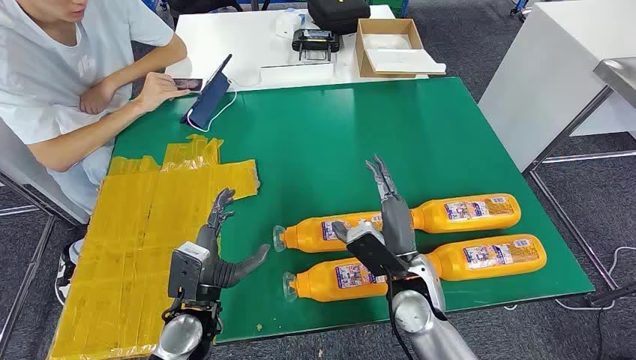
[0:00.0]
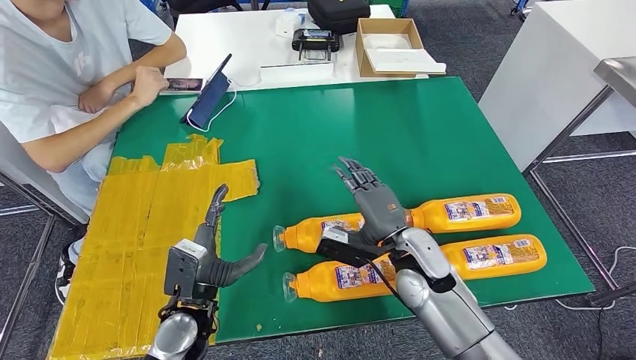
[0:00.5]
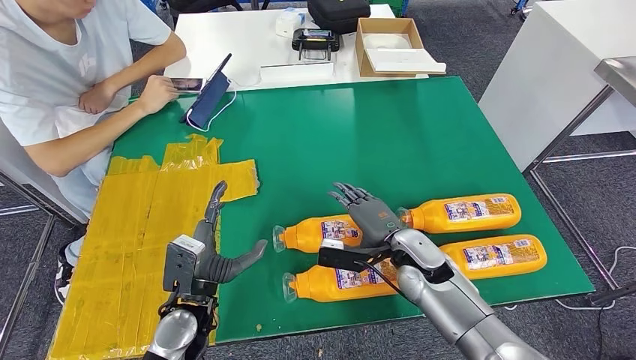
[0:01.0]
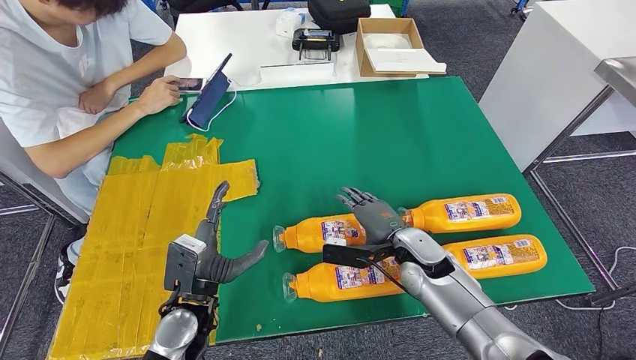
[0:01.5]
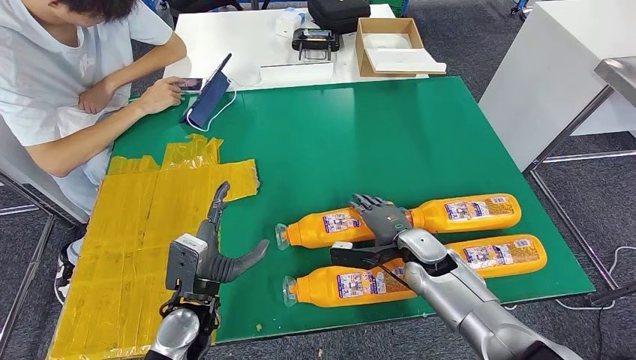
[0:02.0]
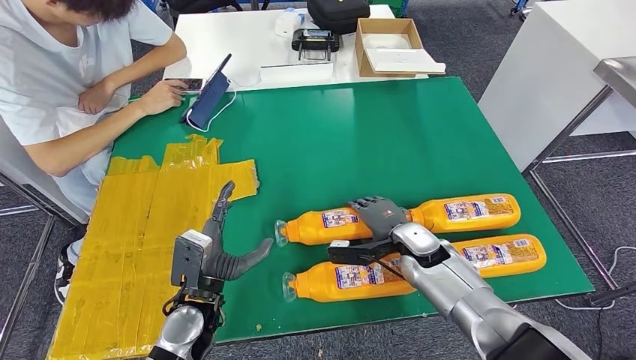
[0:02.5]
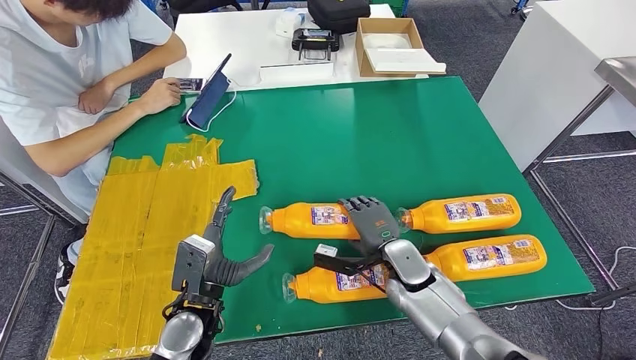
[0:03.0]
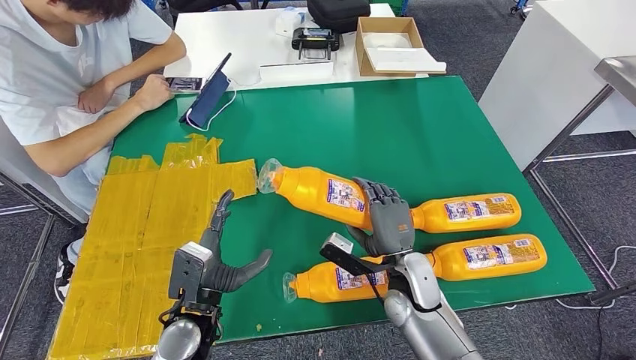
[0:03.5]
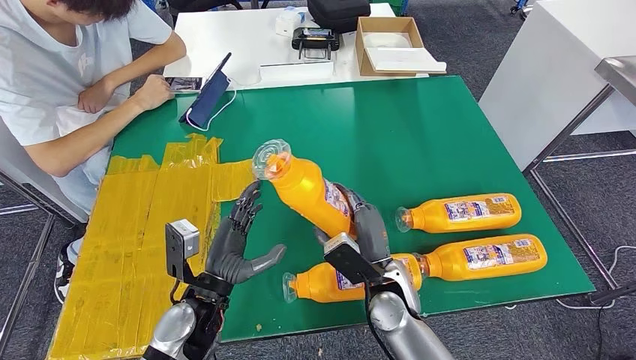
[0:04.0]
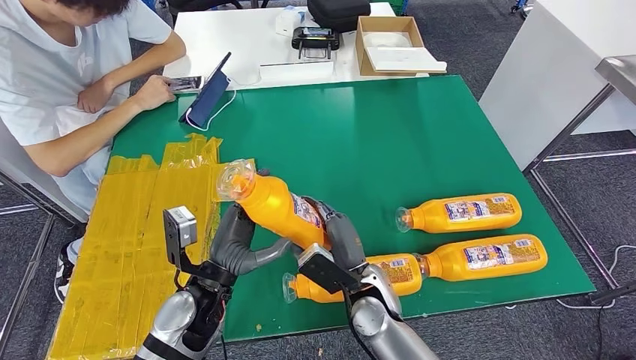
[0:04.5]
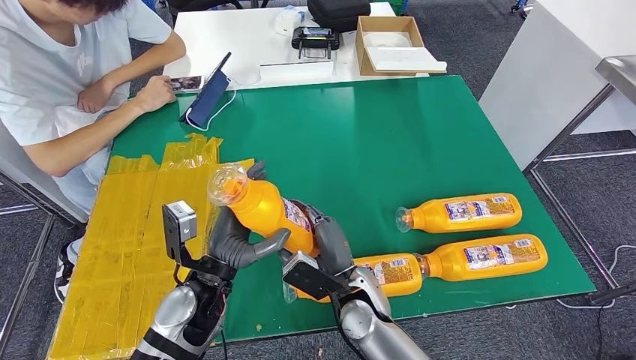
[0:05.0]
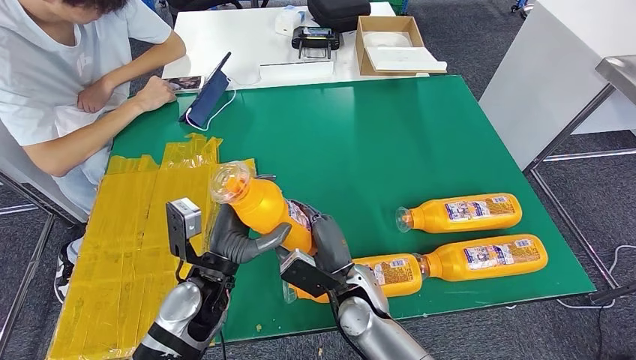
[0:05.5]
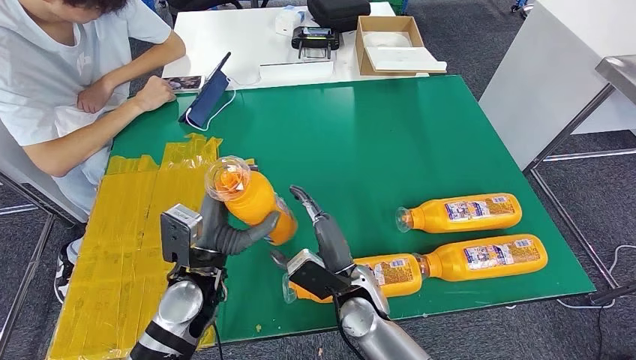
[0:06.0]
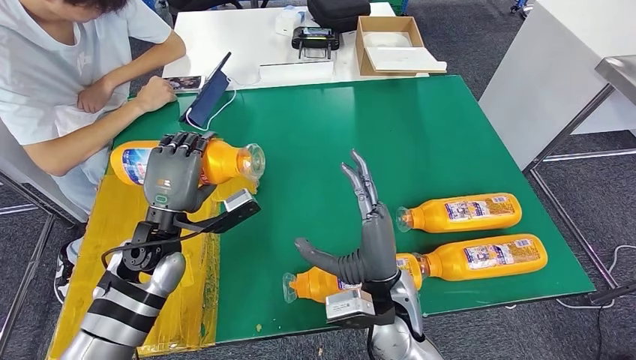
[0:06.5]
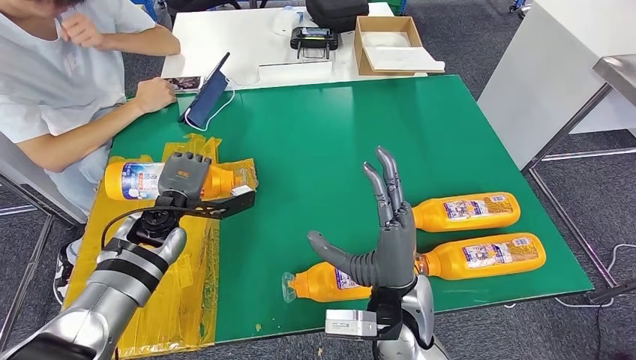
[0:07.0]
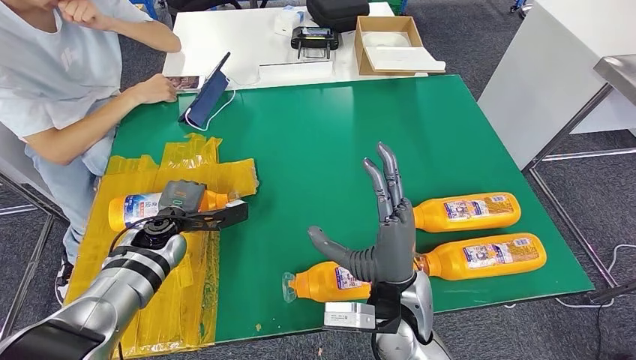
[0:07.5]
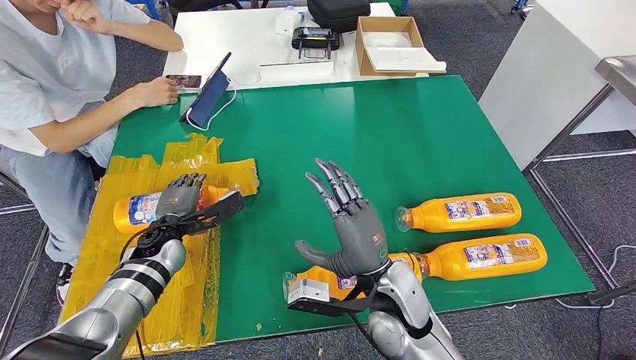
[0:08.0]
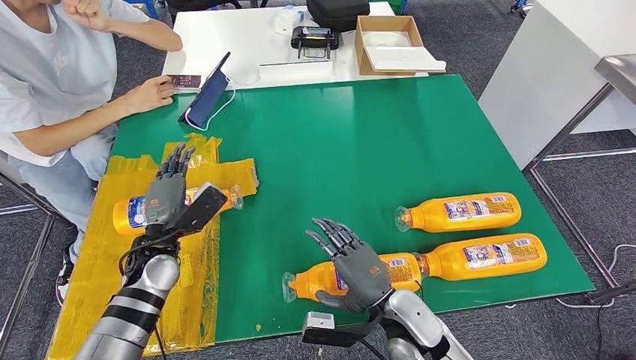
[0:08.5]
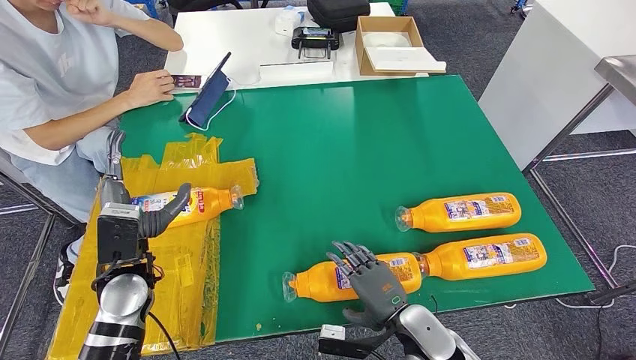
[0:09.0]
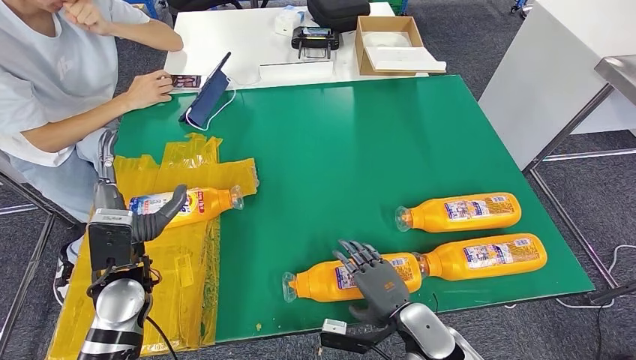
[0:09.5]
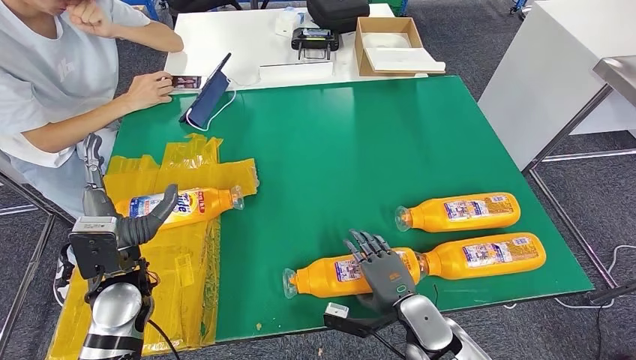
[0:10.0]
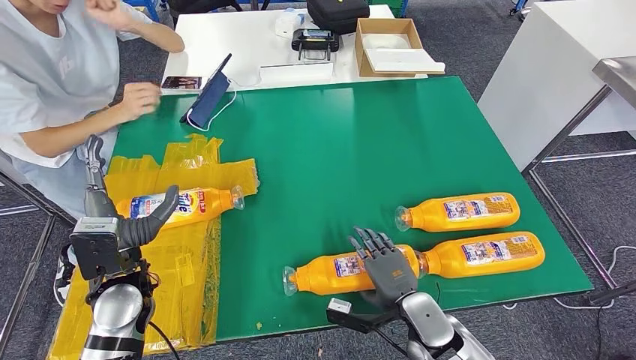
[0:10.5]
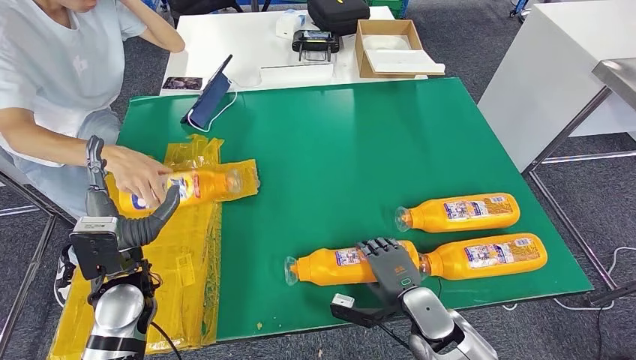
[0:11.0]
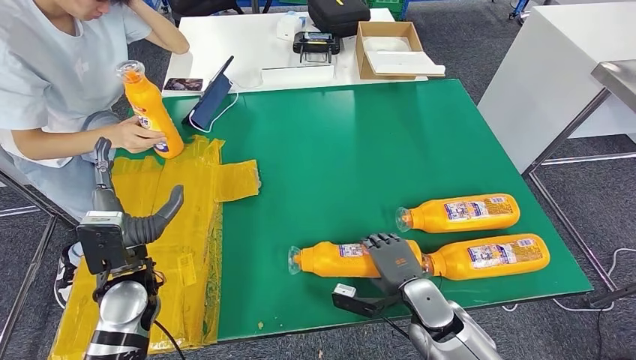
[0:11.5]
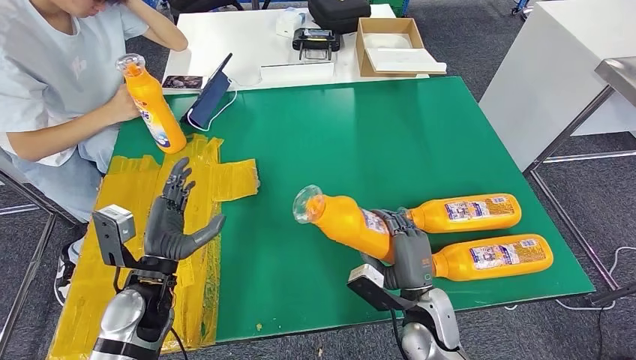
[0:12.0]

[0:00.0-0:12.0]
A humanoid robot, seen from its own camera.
Step, 0:00.0 to 0:03.5: Take the bottle from the table.
Step, 0:04.5 to 0:09.0: Flip the bottle to face forward.
0:02.0 to 0:04.0: The right hand heads to the left and backward, covering about 10 cm.
0:04.0 to 0:06.0: The right hand moves to the left, about 5 cm.
0:08.0 to 0:10.0: The right hand is displaced downward and to the right by roughly 15 cm; the left hand travels backward and upward by about 15 cm.

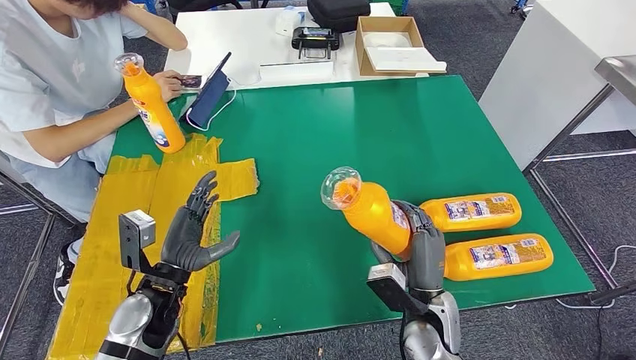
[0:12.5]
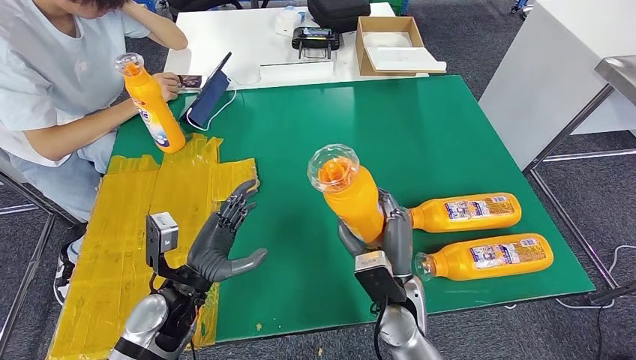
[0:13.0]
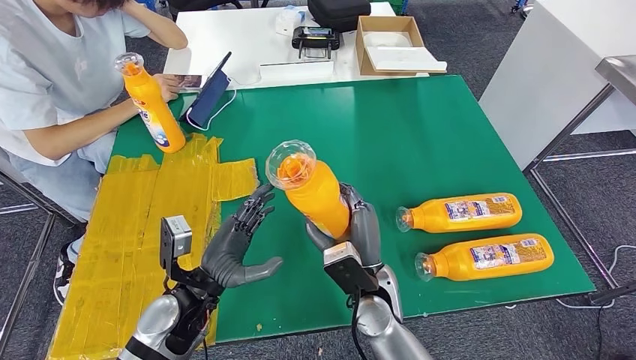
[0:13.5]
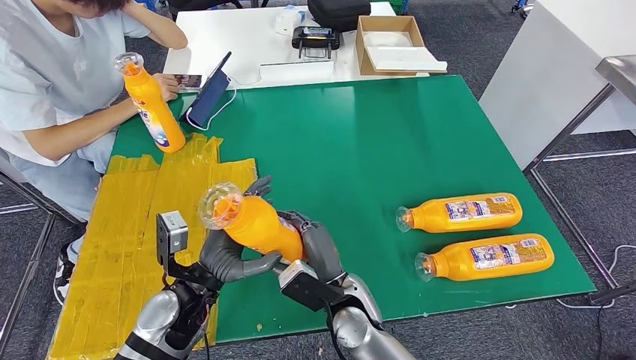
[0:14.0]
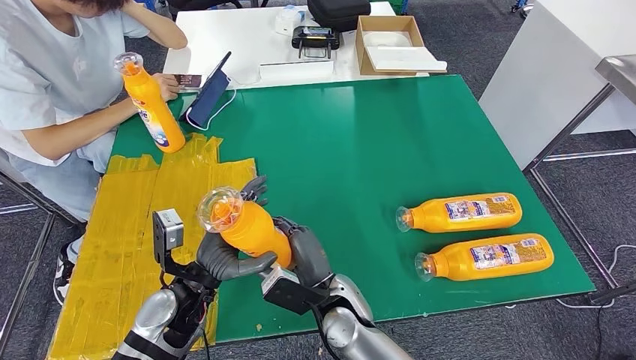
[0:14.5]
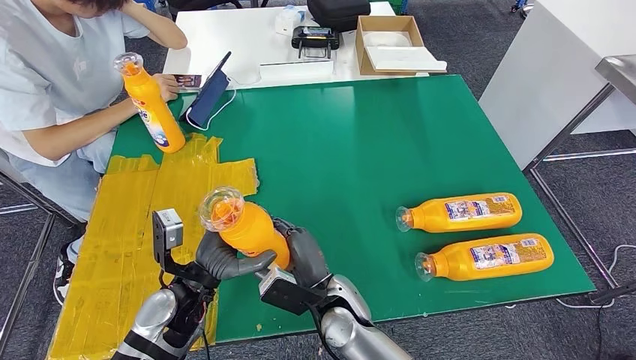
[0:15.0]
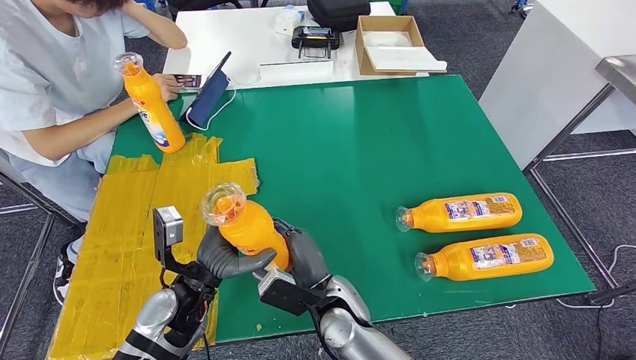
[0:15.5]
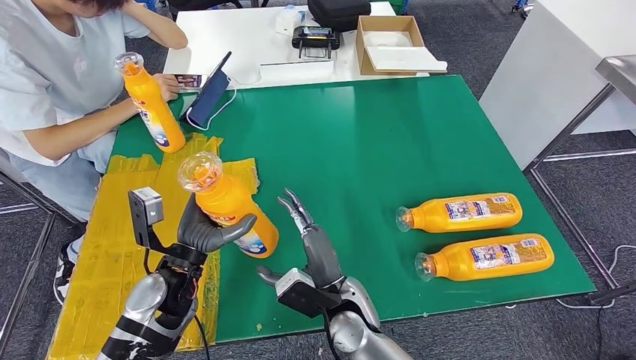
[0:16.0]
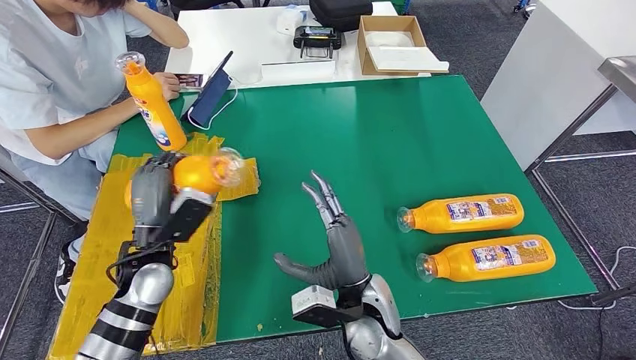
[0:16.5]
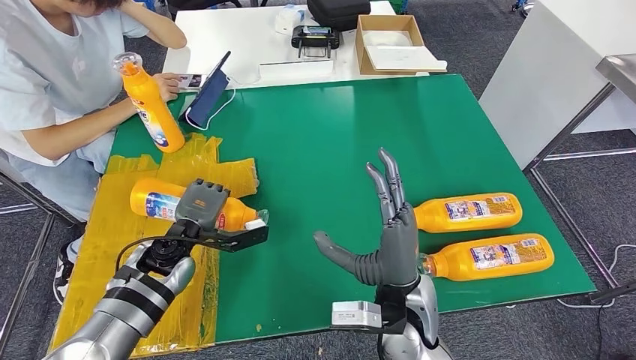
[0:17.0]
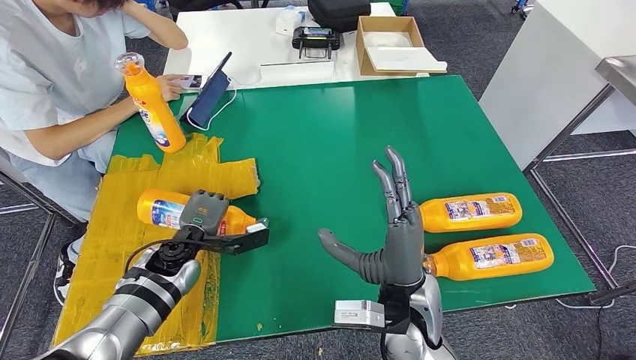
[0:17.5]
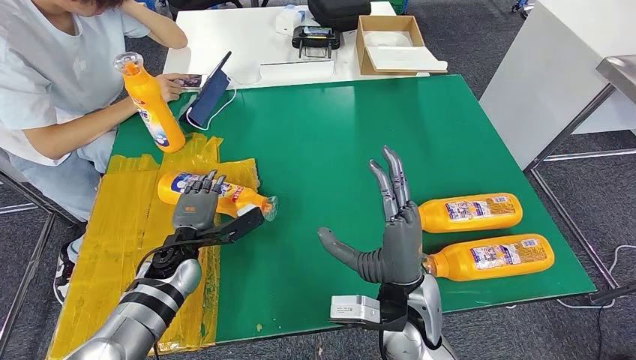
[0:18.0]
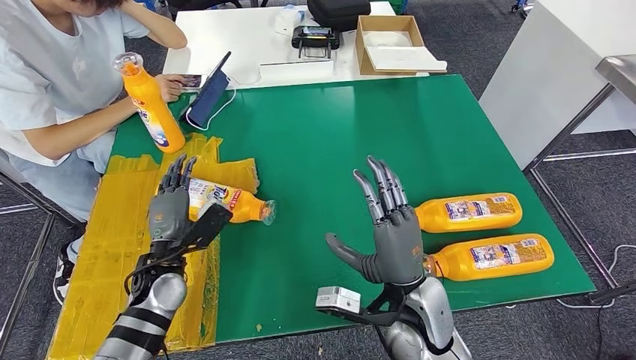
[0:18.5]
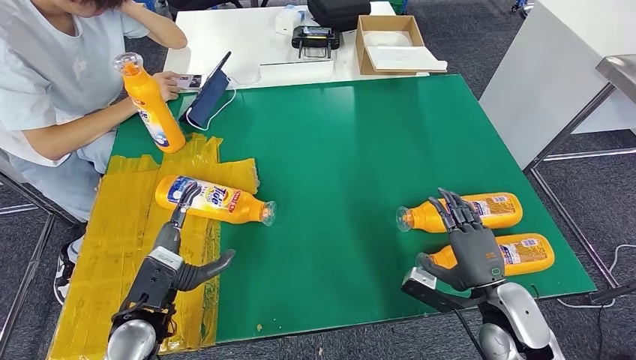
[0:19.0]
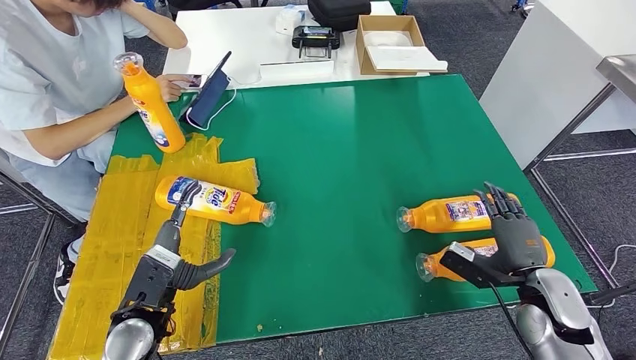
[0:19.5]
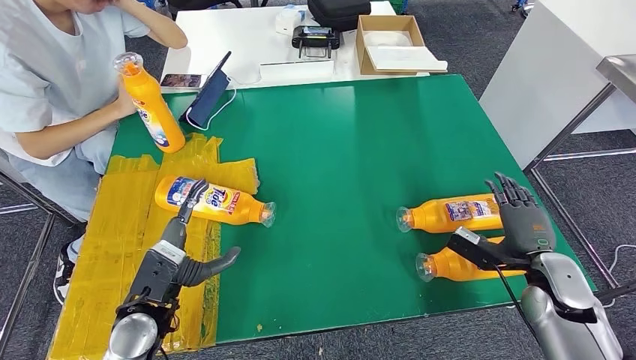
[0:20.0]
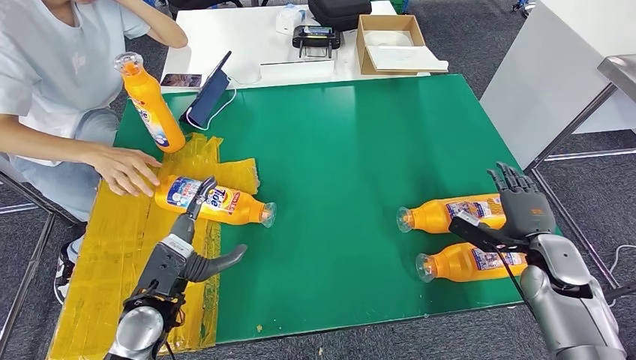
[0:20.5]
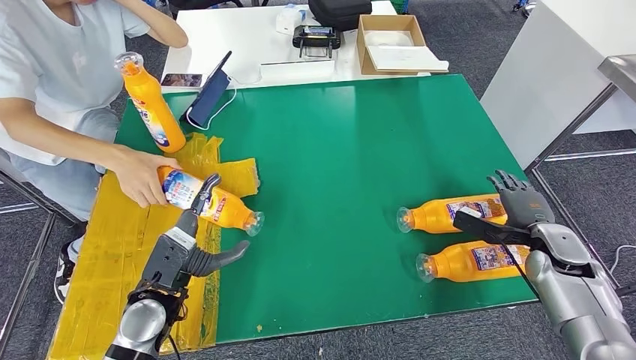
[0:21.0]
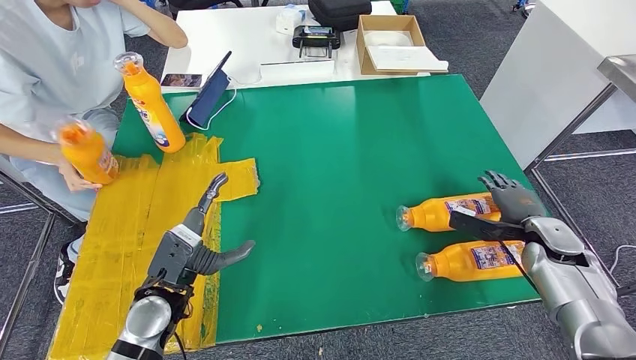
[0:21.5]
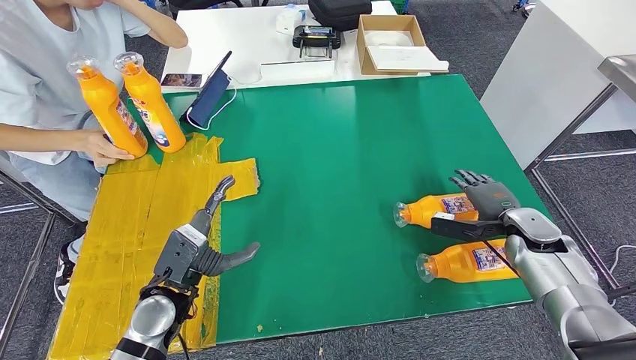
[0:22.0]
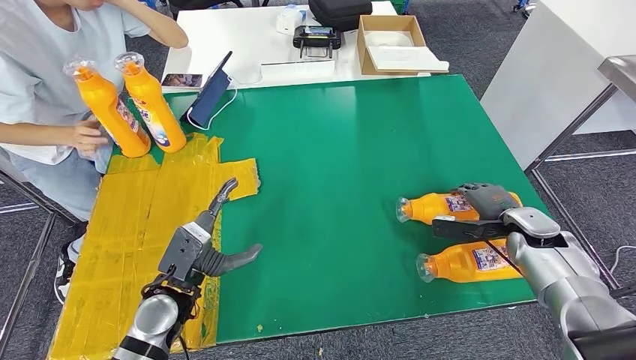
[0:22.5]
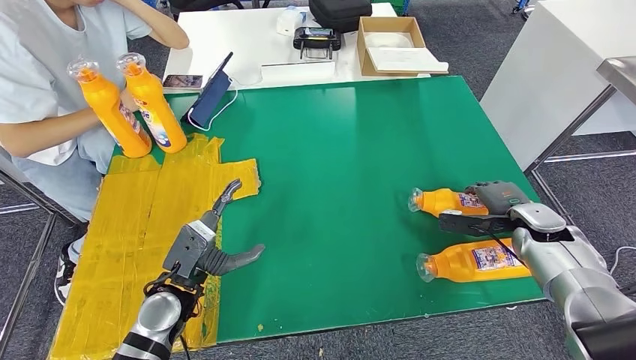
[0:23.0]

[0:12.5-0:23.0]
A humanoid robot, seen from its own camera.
Step, 0:13.0 to 0:18.5: Flip the bottle to face forward.
0:12.5 to 0:14.5: The right hand is displaced to the left by about 15 cm. Meanwhile the left hand moves to the right, roughly 5 cm.
0:14.5 to 0:16.5: The left hand goes roughly 10 cm to the left and forward. Meanwhile the right hand shifts by some 5 cm.
